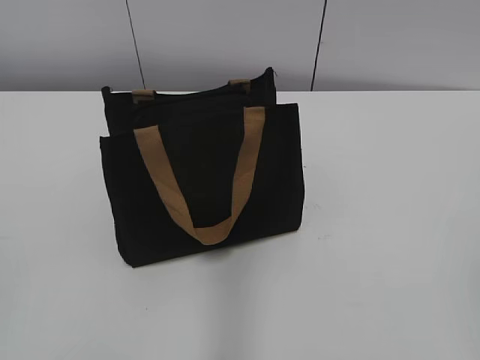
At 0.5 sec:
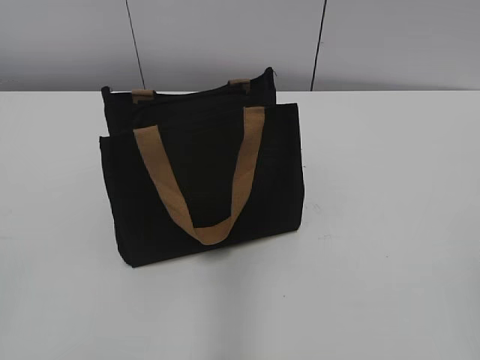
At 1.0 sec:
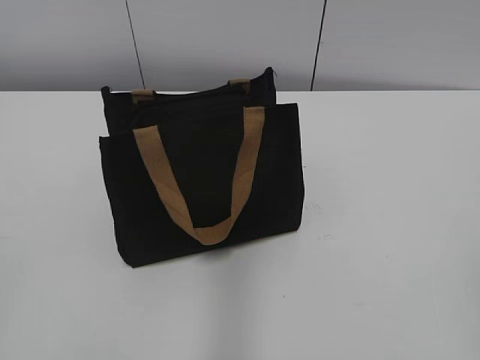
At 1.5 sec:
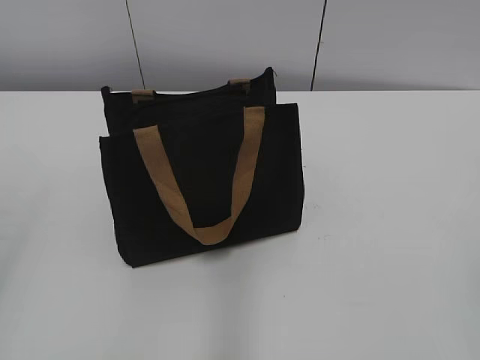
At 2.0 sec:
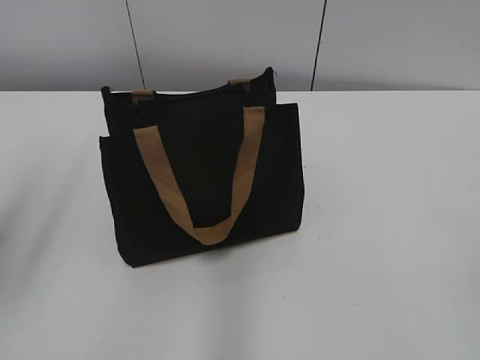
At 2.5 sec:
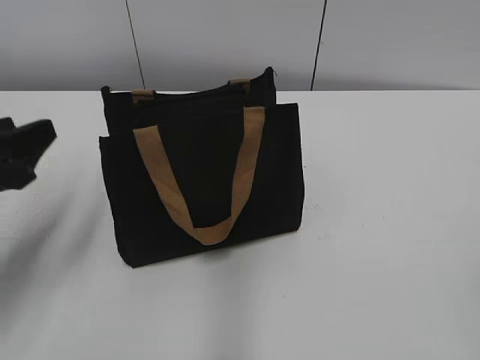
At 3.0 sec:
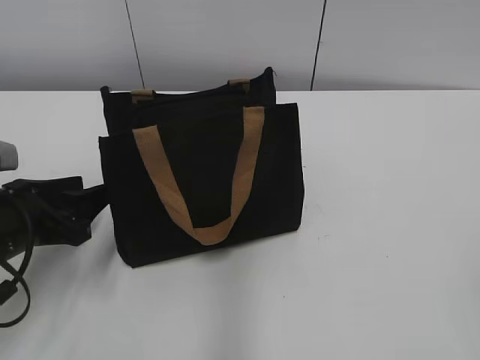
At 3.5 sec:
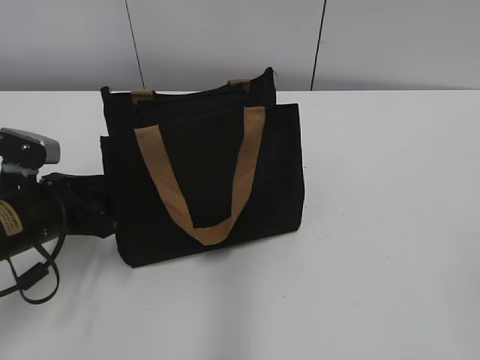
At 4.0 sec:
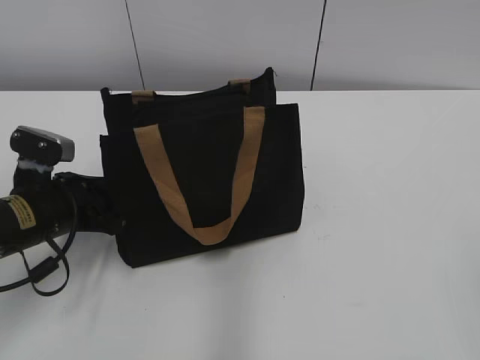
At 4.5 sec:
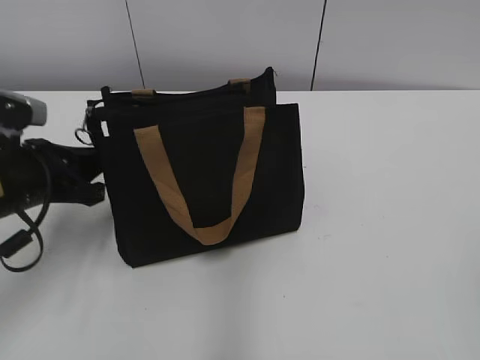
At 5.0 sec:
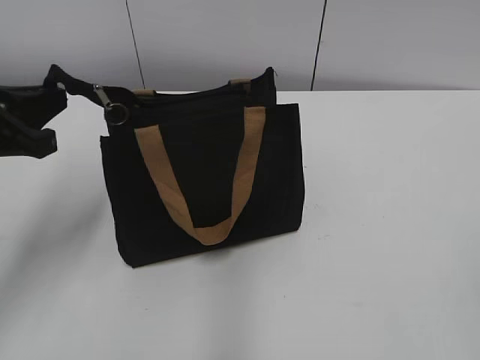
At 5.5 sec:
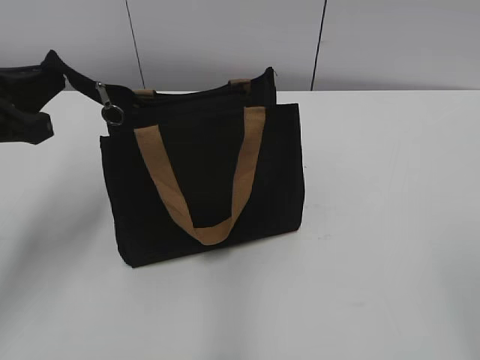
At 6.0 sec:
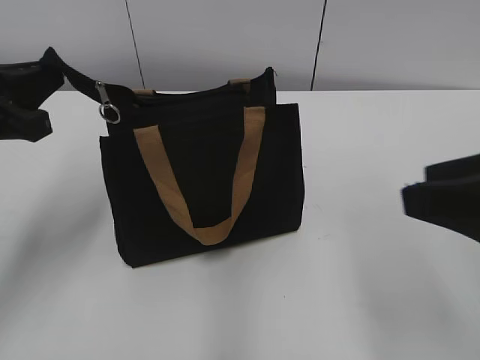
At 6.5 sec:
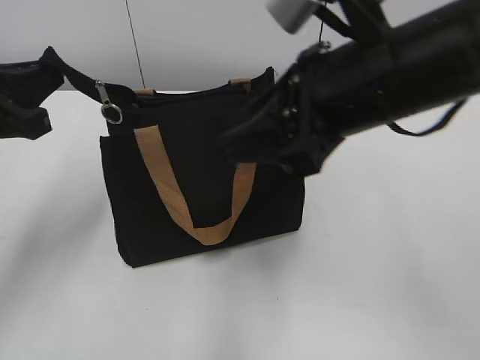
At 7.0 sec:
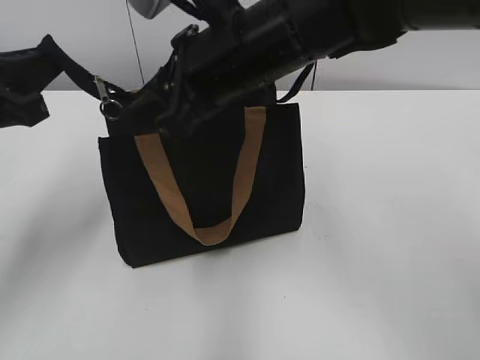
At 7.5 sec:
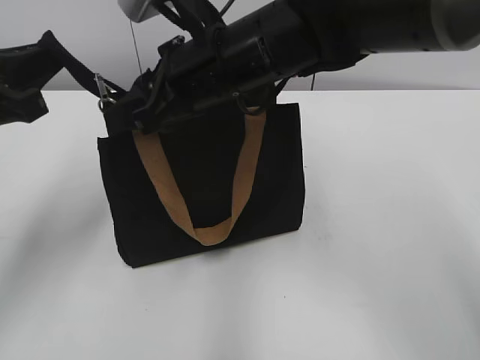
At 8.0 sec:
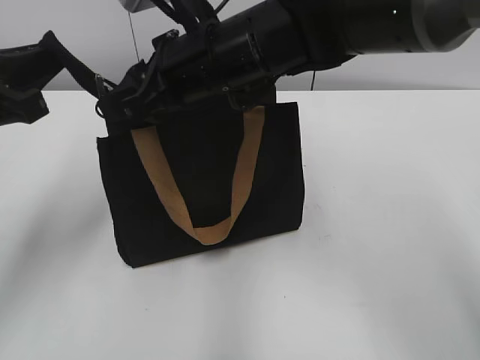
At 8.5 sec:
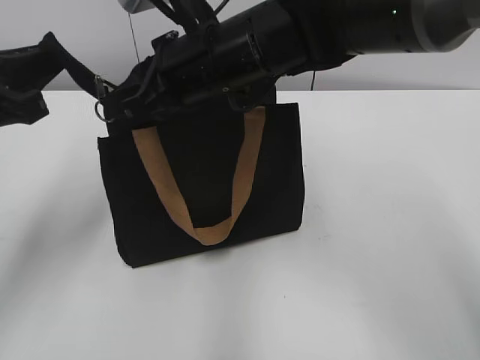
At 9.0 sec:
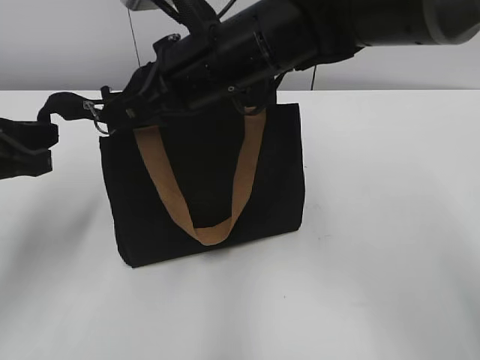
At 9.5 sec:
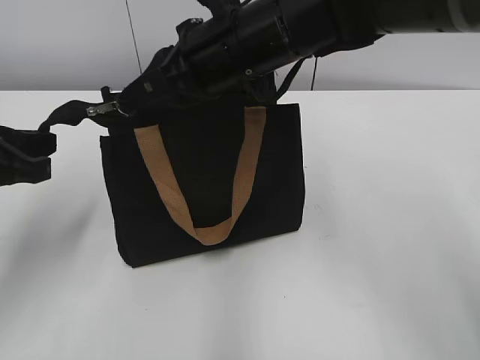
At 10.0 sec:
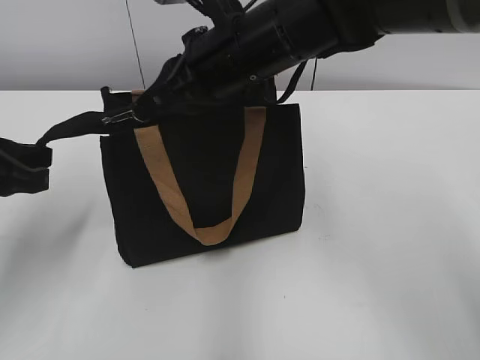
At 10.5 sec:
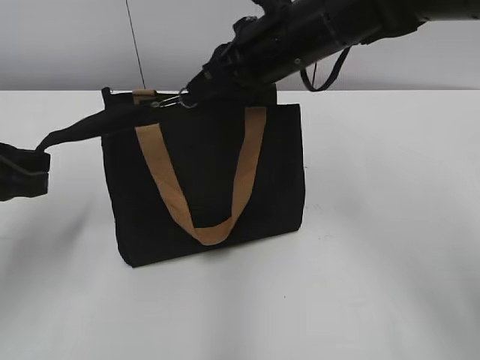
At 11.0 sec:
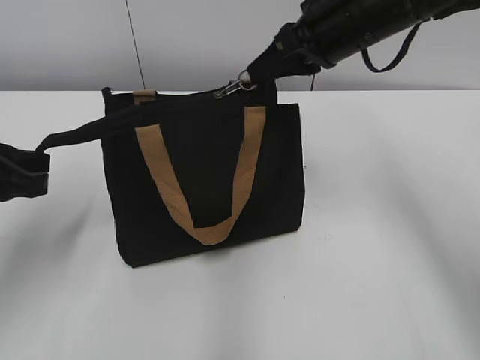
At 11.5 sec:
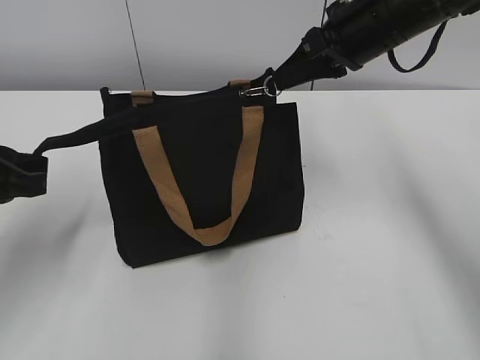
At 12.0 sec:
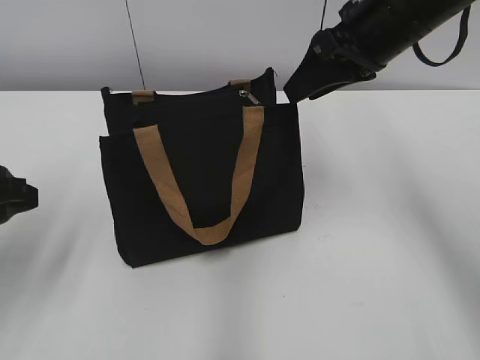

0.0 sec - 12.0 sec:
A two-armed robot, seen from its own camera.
Step, 0.0 sec - 11.5 sec: Zip up the bag with your right hand.
2.0 sec - 4.0 sec: The left gripper travels downward and forward by about 25 cm, and closes its fingers.
4.0 sec - 6.0 sec: The right gripper goes approximately 15 cm forward and to the left; the left gripper shifts some 15 cm upward, and closes up.
6.0 sec - 8.0 sec: The right gripper travels to the left and forward by about 30 cm.
8.0 sec - 10.0 sec: The right gripper closes up.
10.0 sec - 12.0 sec: The left gripper opens its fingers. Meanwhile the right gripper shifts about 15 cm to the right, and opens up.

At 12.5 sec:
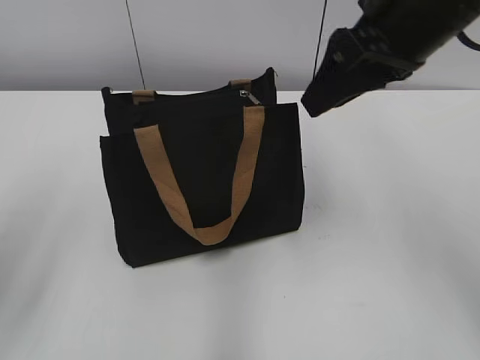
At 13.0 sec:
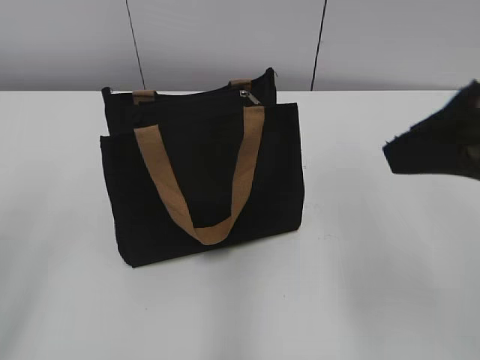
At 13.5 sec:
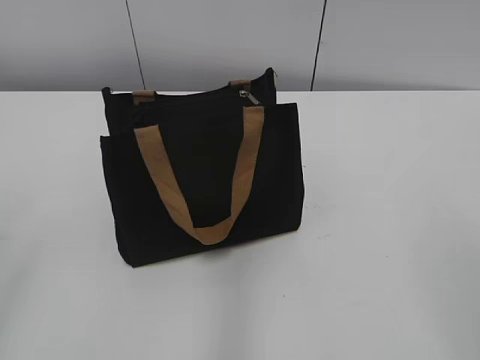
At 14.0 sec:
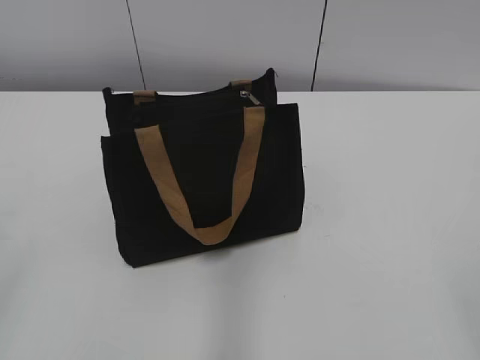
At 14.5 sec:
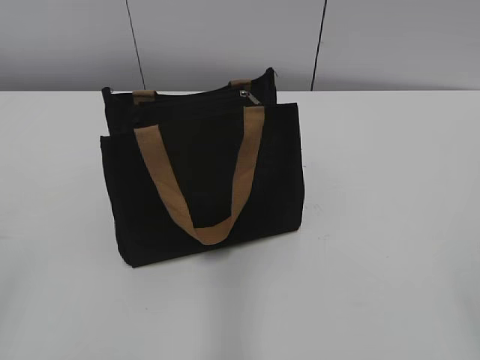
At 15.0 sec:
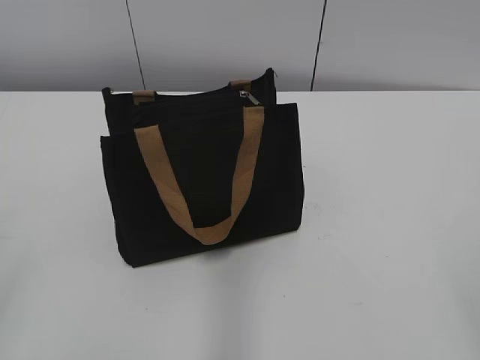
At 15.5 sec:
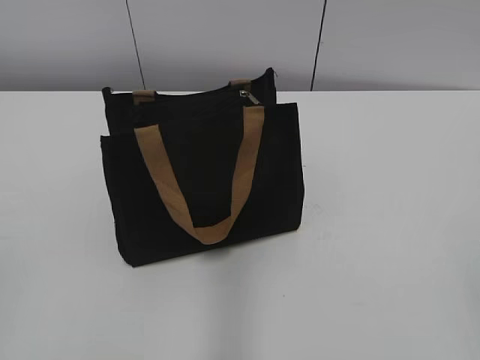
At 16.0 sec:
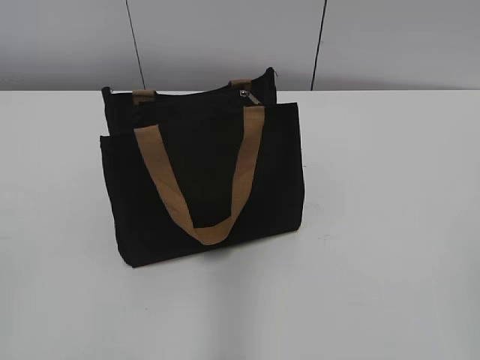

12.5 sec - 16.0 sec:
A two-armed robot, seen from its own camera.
12.5 sec - 14.5 sec: The left gripper is displaced backward by approximately 15 cm; the right gripper goes approximately 35 cm backward and to the right.

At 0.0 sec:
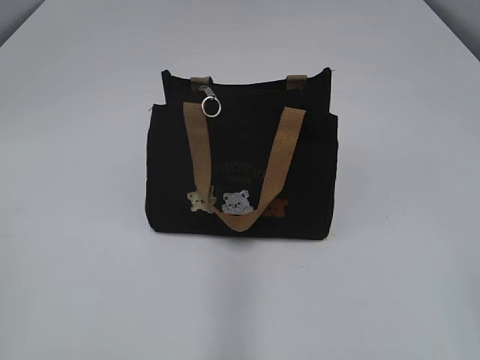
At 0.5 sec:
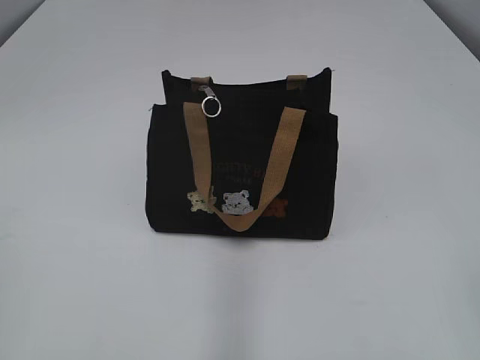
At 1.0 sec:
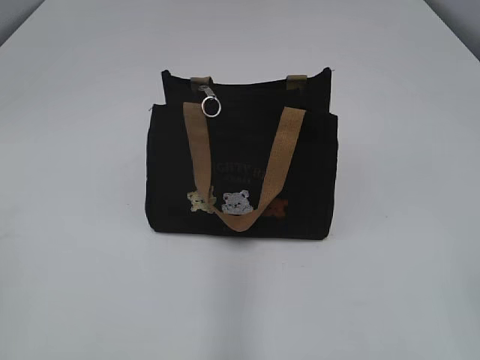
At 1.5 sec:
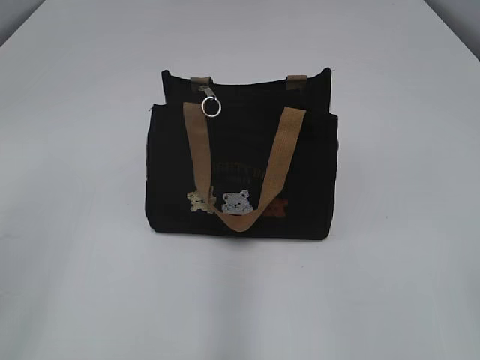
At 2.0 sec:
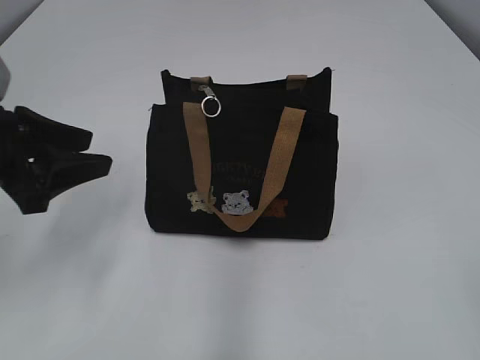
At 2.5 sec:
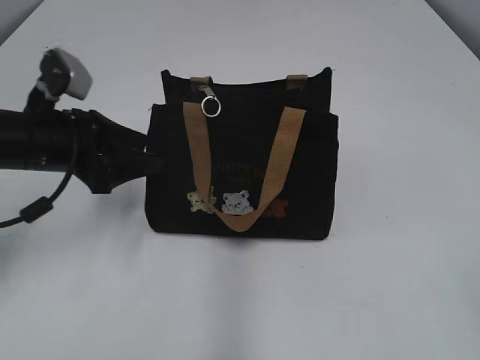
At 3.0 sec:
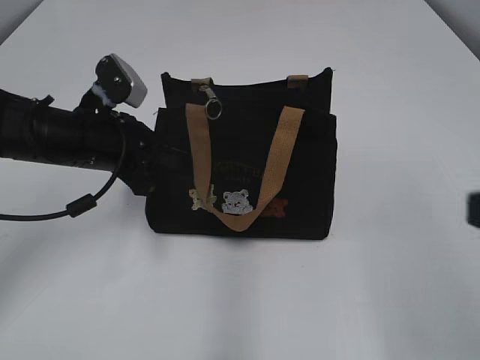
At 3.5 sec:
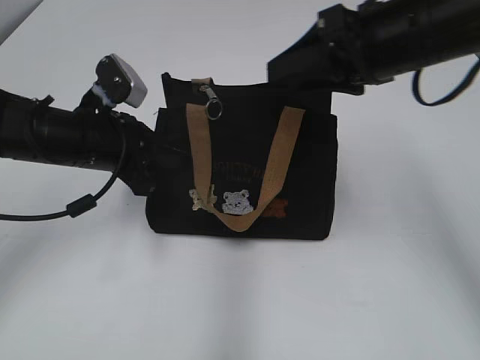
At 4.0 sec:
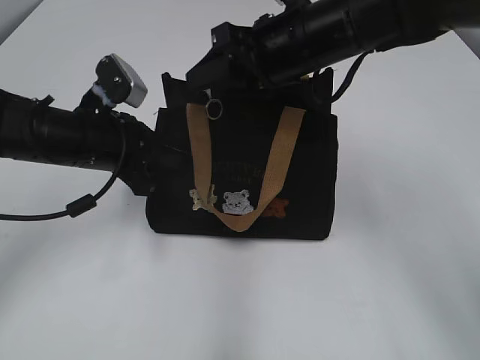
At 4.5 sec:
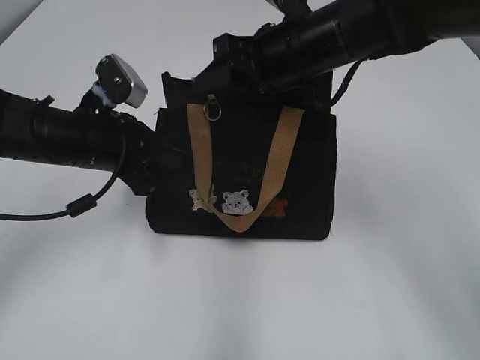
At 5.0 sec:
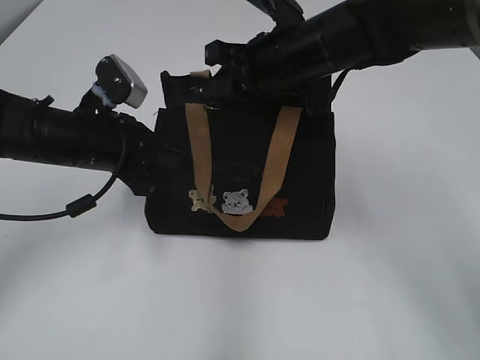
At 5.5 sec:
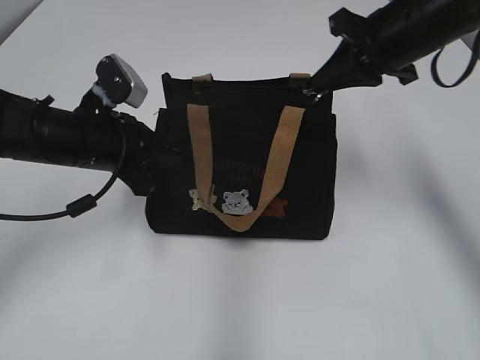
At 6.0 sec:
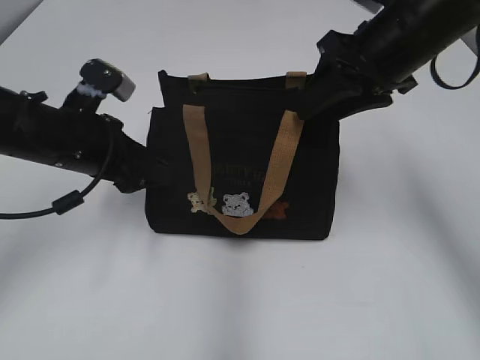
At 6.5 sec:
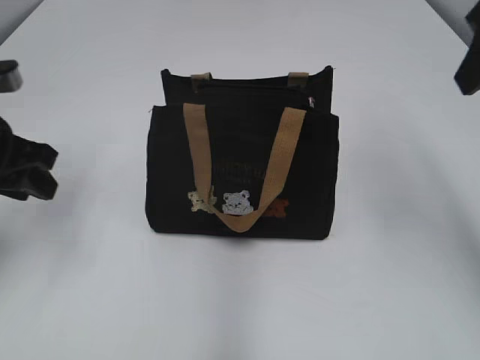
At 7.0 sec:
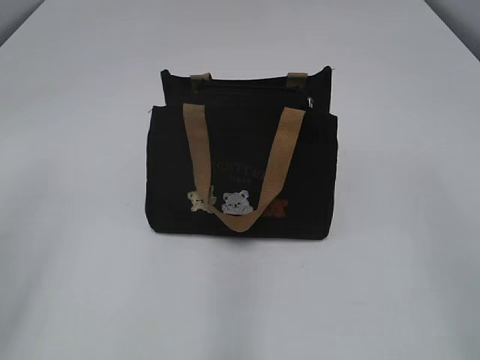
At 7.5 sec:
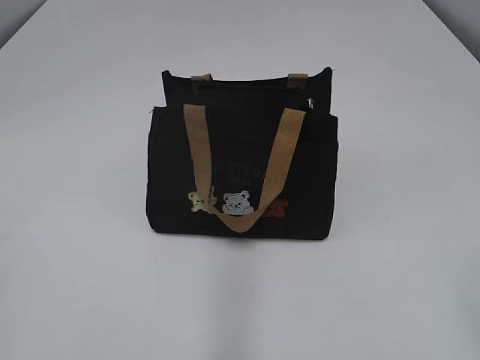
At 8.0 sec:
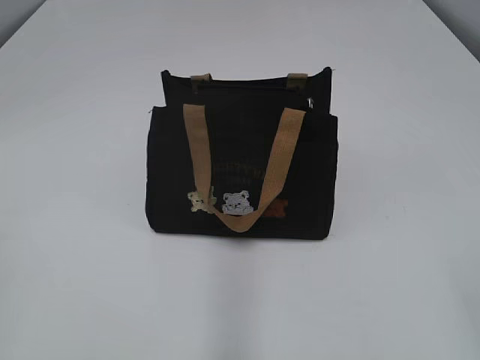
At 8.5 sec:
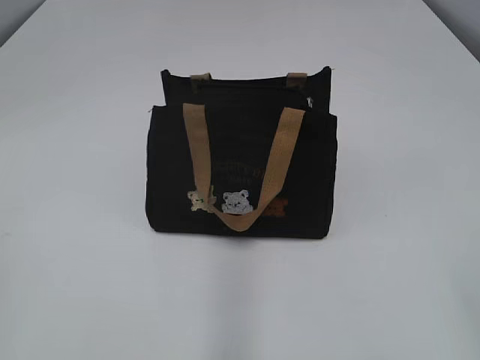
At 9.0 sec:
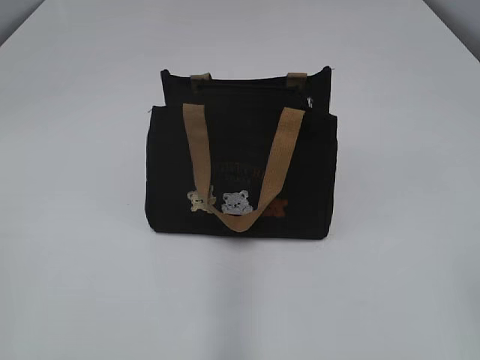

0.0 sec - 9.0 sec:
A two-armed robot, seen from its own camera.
Step, 0.0 sec - 6.0 sec: Pull open the zipper with your right hand.
2.0 sec - 4.5 sec: The left gripper moves forward, downward and to the right, approximately 15 cm, and closes its fingers. Meanwhile the right gripper travels forward and to the left by roughly 40 cm.
4.5 sec - 7.0 sec: The left gripper is displaced backward, upward and to the left by approximately 20 cm, and opens its fingers. Meanwhile the right gripper travels backward, to the right and upward by approximately 30 cm, and closes, then reopens.
